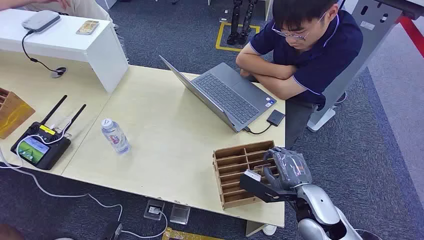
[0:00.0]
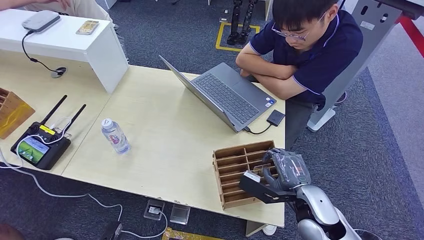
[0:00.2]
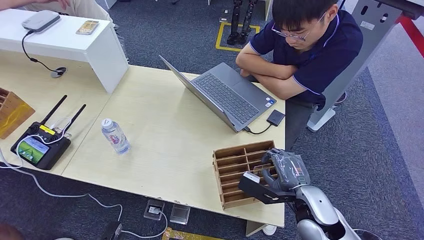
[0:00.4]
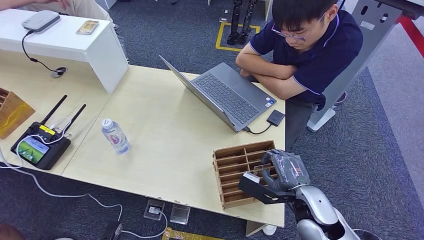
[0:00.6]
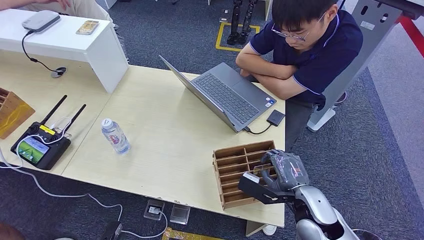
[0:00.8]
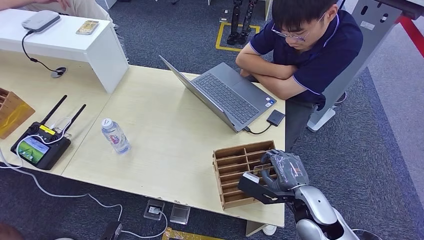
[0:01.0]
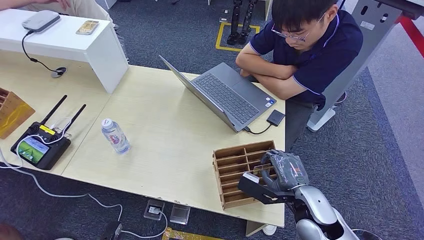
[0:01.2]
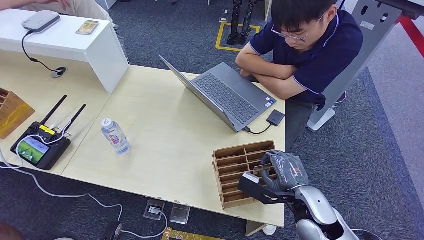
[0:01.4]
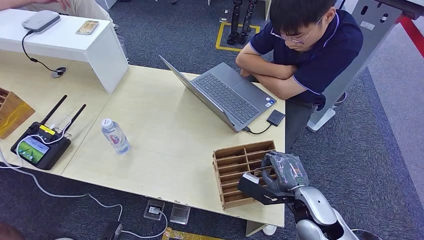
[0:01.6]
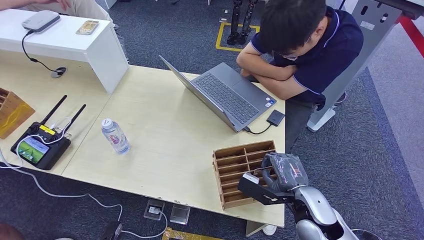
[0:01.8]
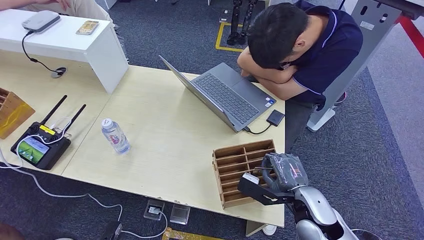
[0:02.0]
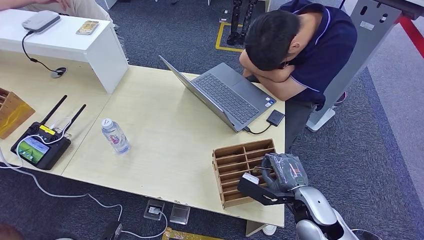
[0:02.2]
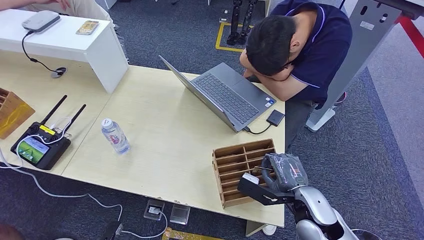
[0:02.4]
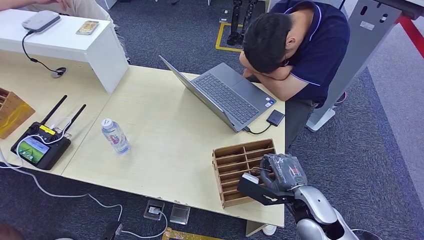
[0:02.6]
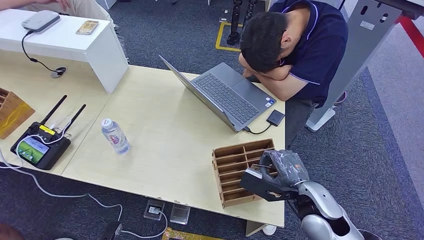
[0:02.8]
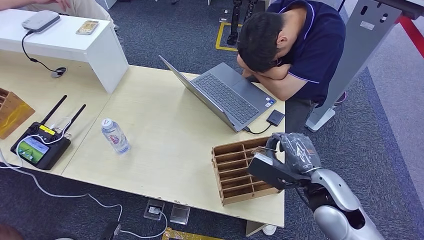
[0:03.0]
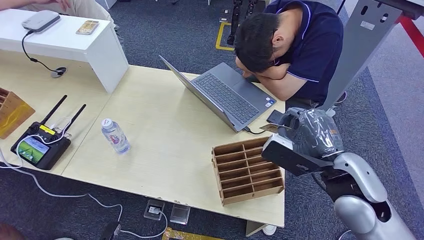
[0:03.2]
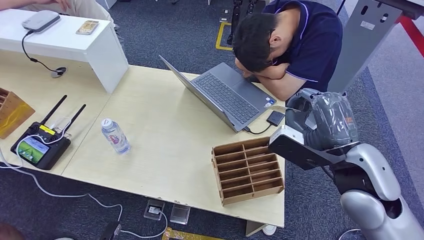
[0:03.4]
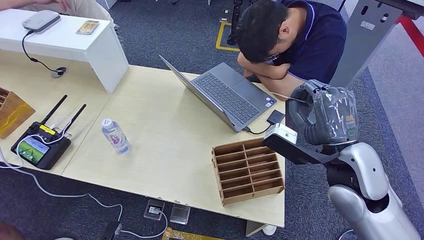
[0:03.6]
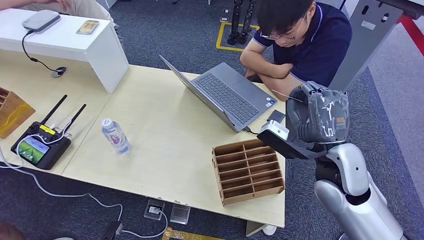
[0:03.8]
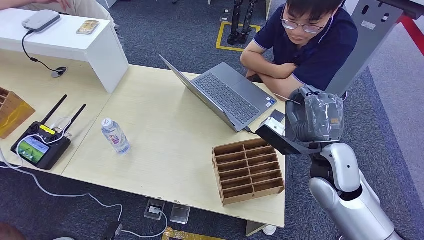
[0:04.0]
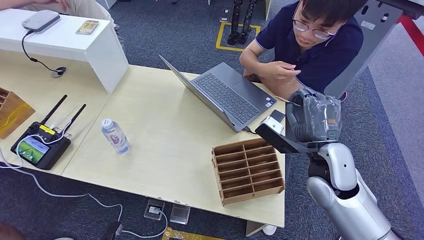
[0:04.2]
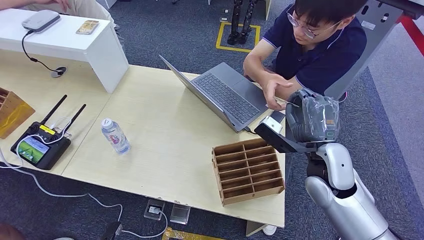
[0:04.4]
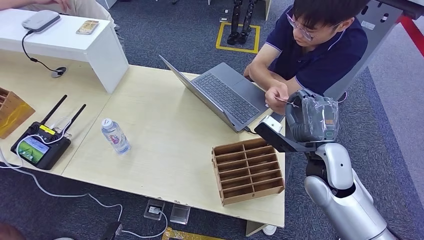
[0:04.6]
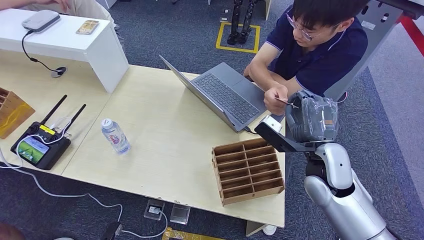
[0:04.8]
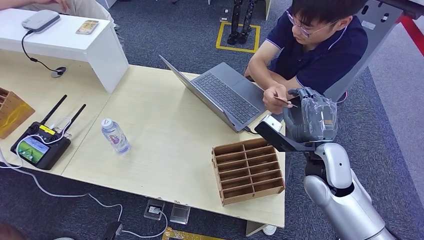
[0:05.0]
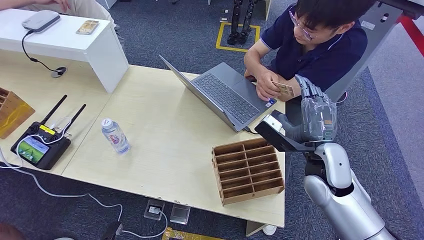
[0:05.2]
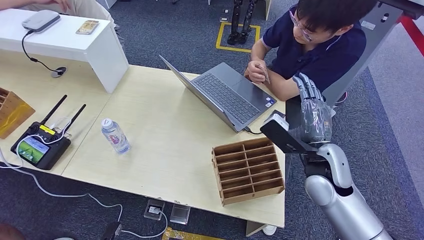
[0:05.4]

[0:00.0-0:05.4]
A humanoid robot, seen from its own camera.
Task of the whole recording: Pick up the card and hand it to the target person.
Step, 0:00.0 to 0:03.2: Pick up the key card from the card box.
Step, 0:03.8 to 0:05.4: Hand the key card to the target.
0:01.4 to 0:02.8: The hands stay close to where they were, moving slightly.
0:02.8 to 0:04.0: The right hand travels upward and forward by roughly 10 cm.
0:04.0 to 0:05.4: There are only small adjustments of the hands.
